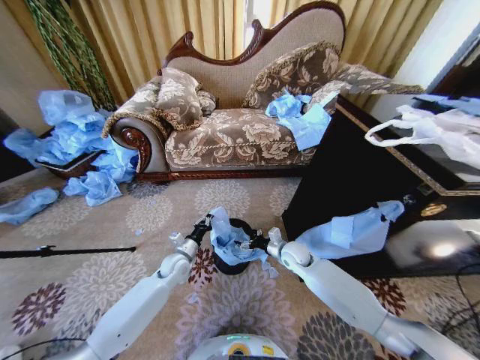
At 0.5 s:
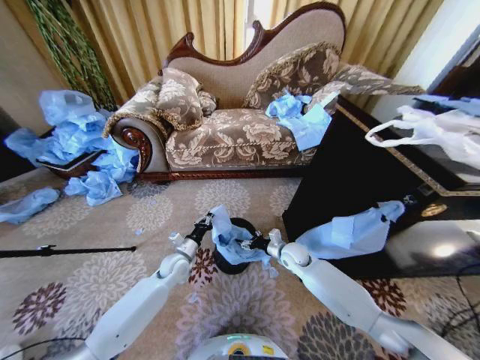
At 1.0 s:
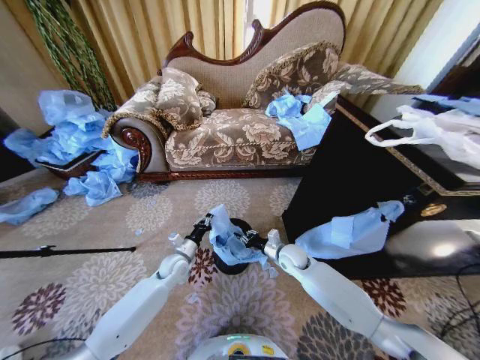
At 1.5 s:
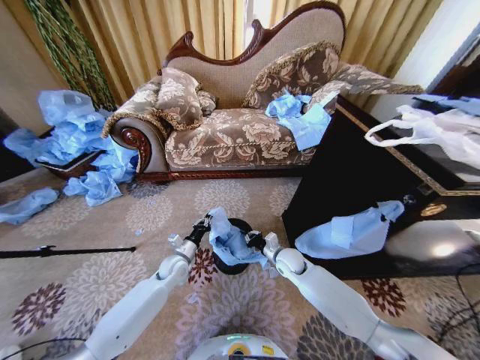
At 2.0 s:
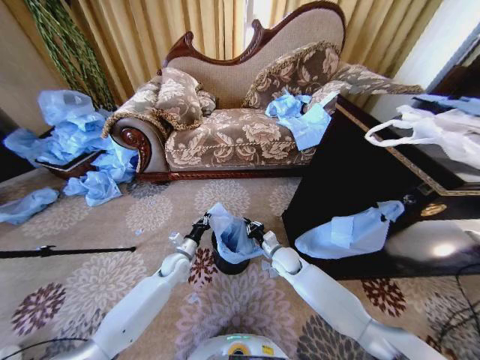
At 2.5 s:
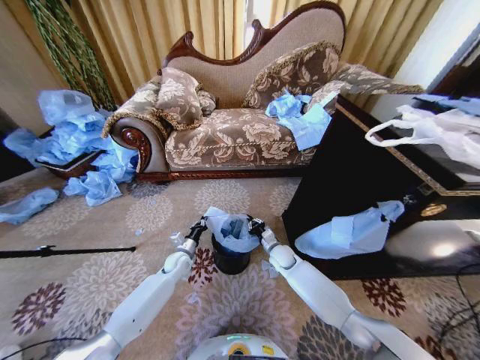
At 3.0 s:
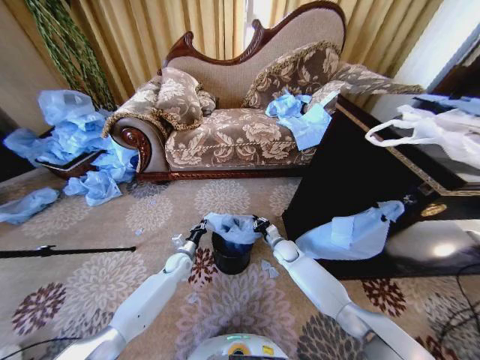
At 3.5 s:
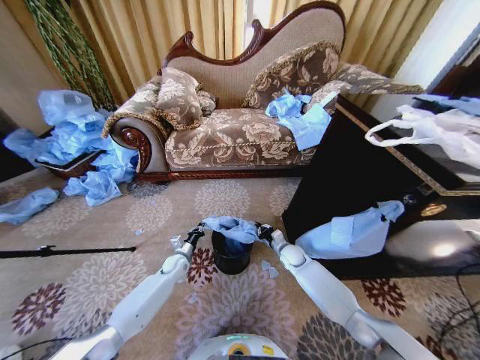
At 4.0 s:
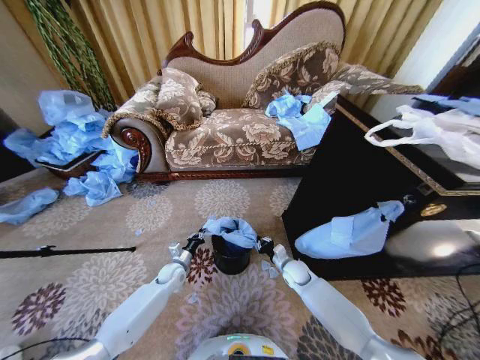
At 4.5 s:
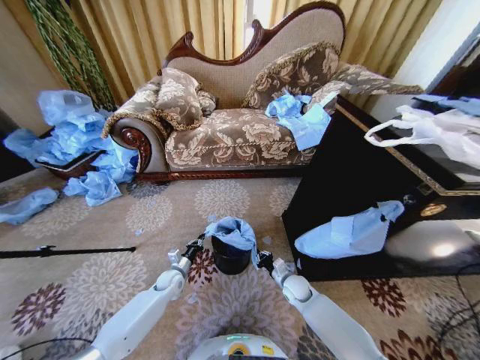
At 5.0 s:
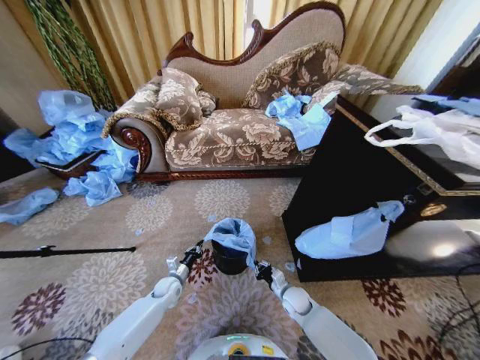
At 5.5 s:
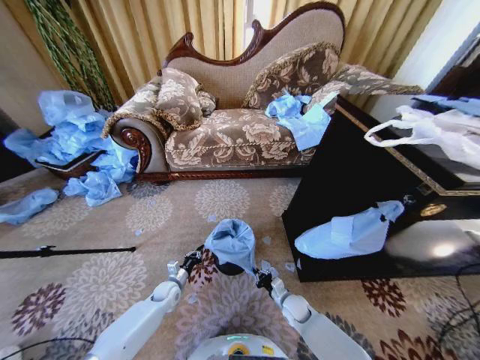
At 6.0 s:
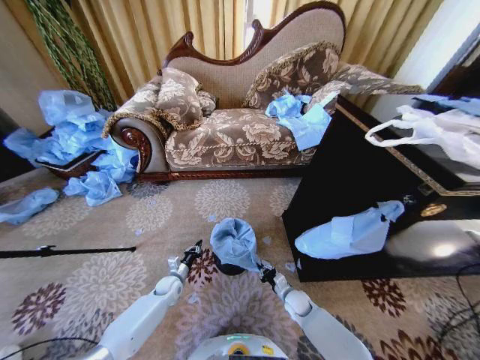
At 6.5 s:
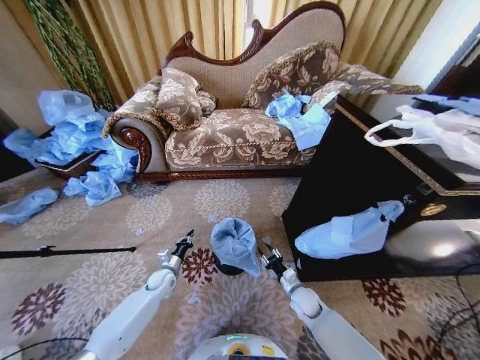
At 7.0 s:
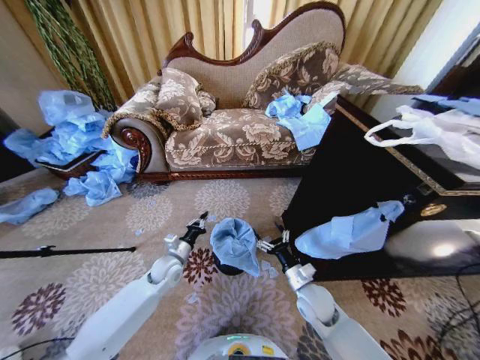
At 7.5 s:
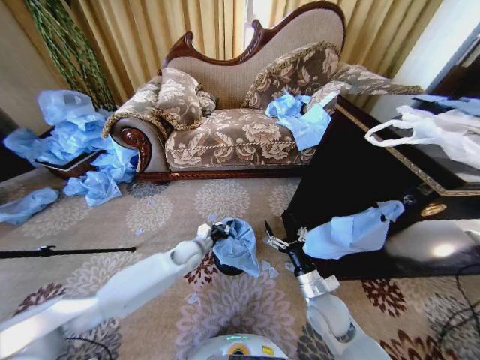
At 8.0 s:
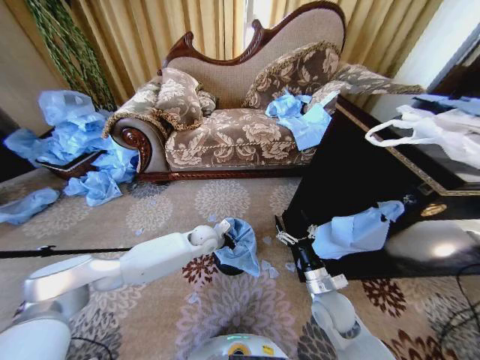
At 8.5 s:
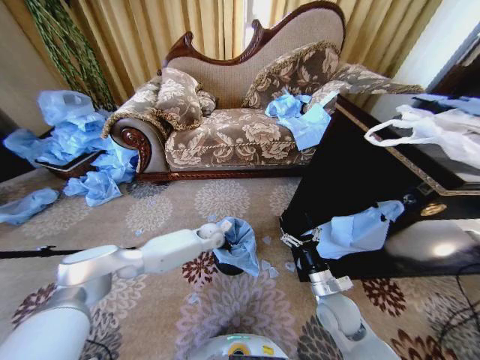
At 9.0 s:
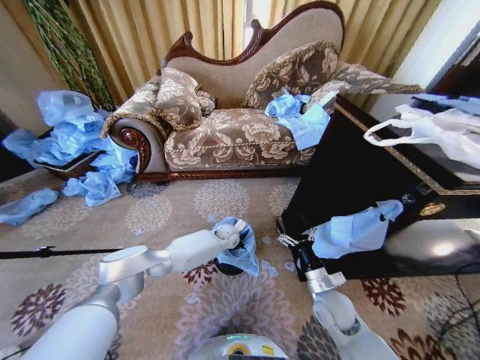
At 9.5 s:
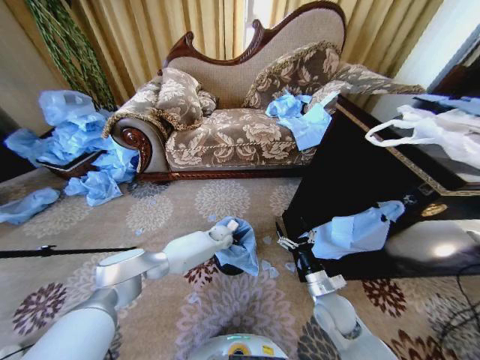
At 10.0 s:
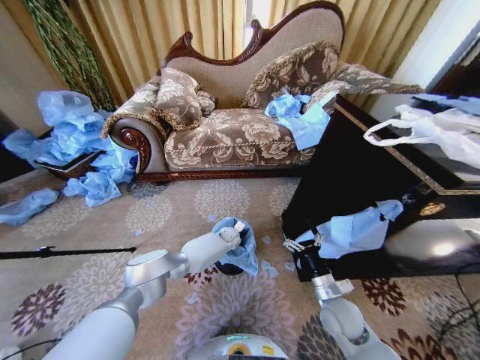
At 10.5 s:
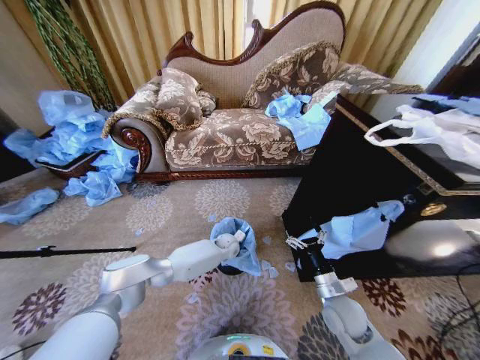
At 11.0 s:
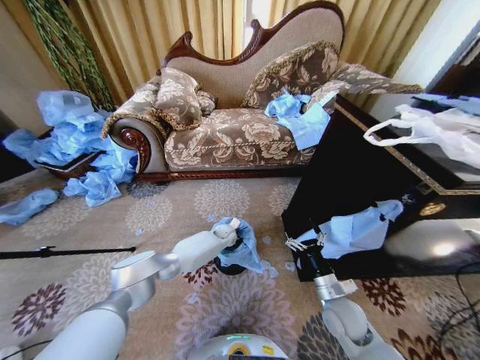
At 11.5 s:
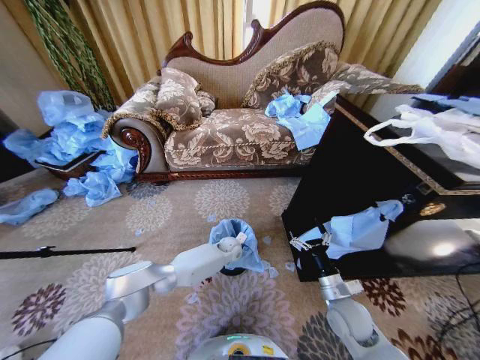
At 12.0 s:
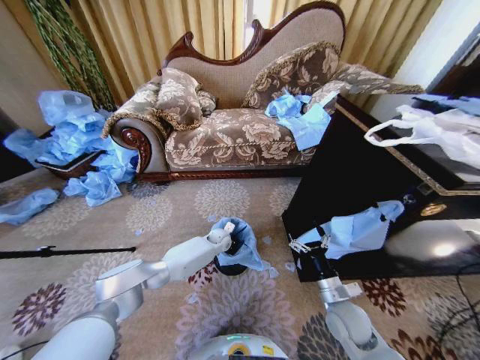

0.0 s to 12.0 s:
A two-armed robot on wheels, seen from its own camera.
Task of the whole recording: Place a garbage bag over the trash bin.
0.0 to 2.0 s: The right gripper closes.
2.0 to 4.0 s: The left gripper travels downward by approximately 5 cm. The right gripper heads downward and to the right, covering some 10 cm.
4.0 to 6.0 s: The right gripper moves downward and backward, approximately 10 cm. Meanwhile the left gripper shifts some 5 cm downward.
6.0 to 8.0 s: The left gripper goes about 25 cm upward, to the right and forward. The right gripper shifts approximately 20 cm upward, and opens up.
8.0 to 10.0 s: The left gripper travels downward, forward and to the right by approximately 15 cm.
10.0 to 12.0 s: The left gripper goes forward and backward, some 5 cm each way, reversing 2 times.

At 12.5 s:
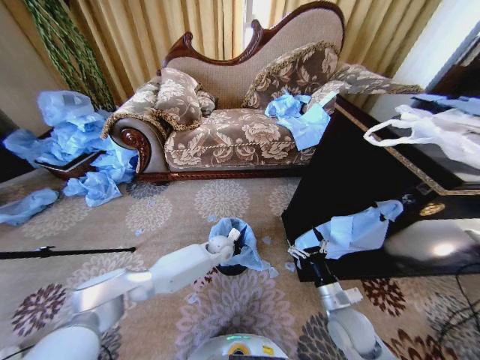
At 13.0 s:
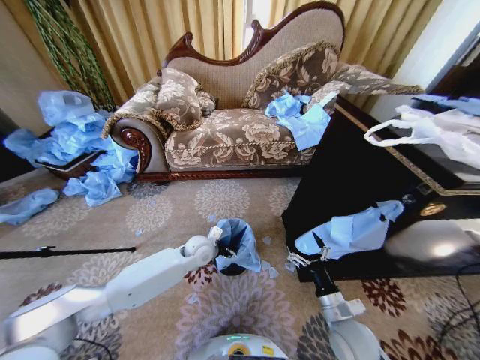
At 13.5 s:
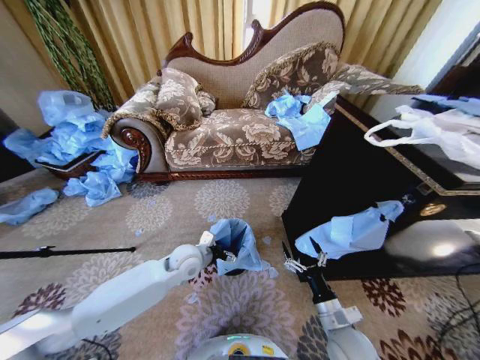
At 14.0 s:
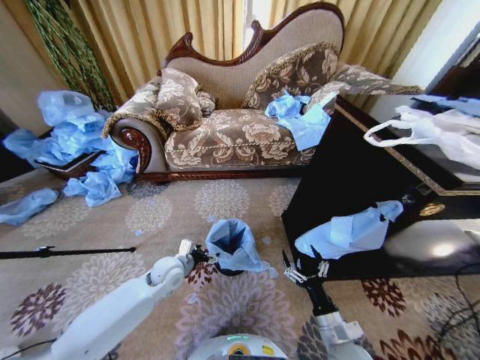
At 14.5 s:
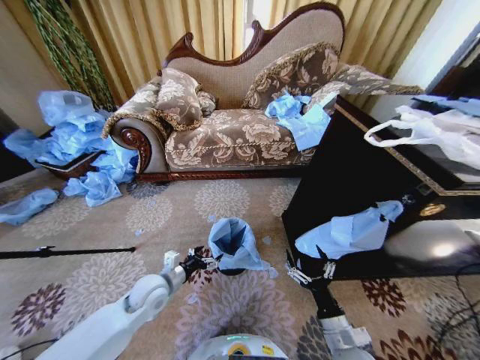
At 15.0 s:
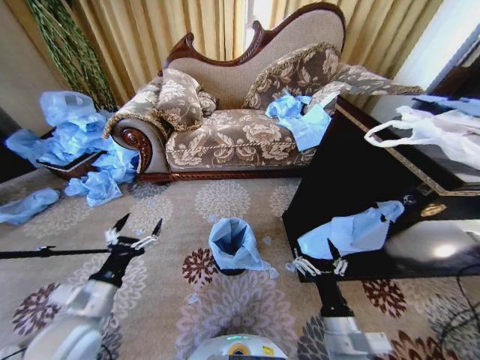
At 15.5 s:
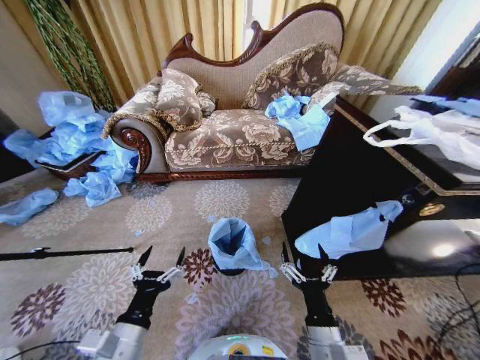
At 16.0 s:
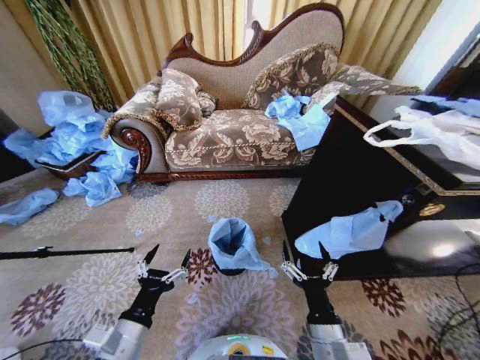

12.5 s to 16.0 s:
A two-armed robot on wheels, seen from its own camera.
Task of the whole recording: Place a garbage bag over the trash bin.
12.5 to 14.5 s: The right gripper heads backward, covering some 10 cm. The left gripper goes about 25 cm backward and to the left.
14.5 to 16.0 s: The left gripper moves backward and upward, about 20 cm, while the right gripper shifts roughly 10 cm to the left and upward.

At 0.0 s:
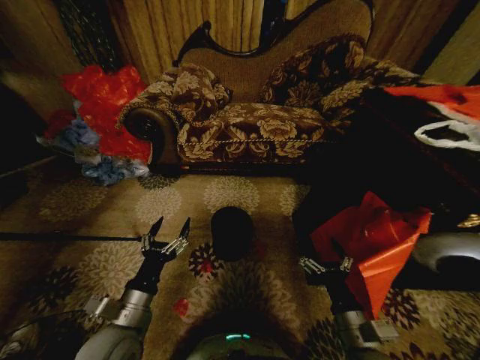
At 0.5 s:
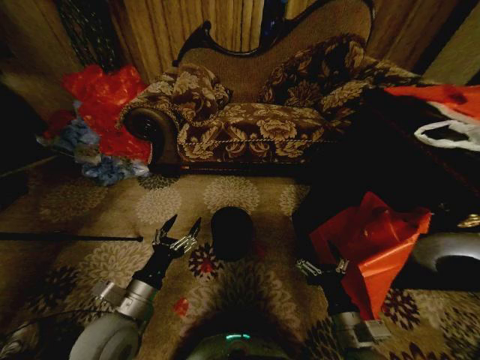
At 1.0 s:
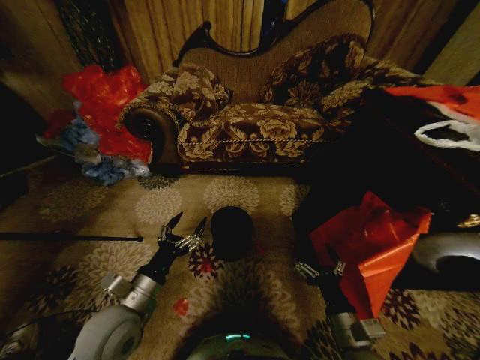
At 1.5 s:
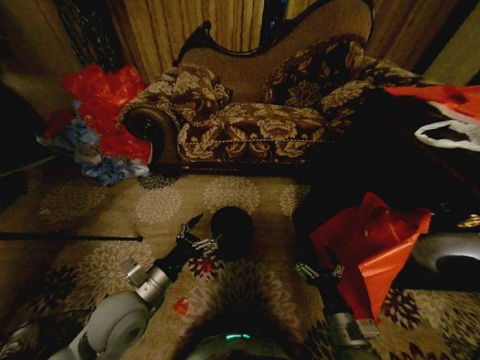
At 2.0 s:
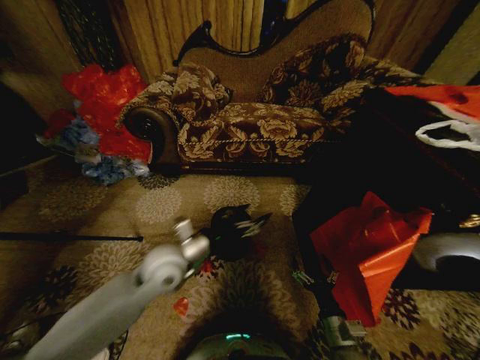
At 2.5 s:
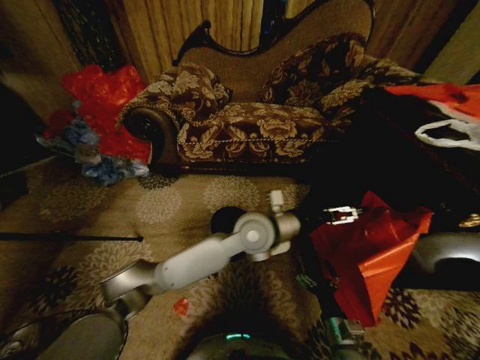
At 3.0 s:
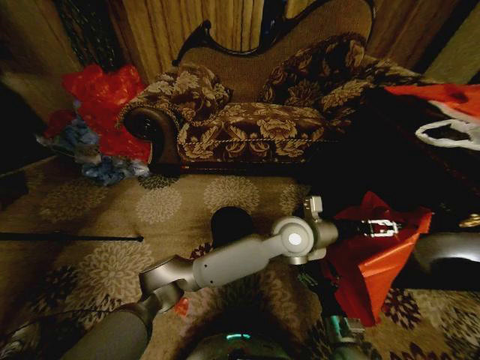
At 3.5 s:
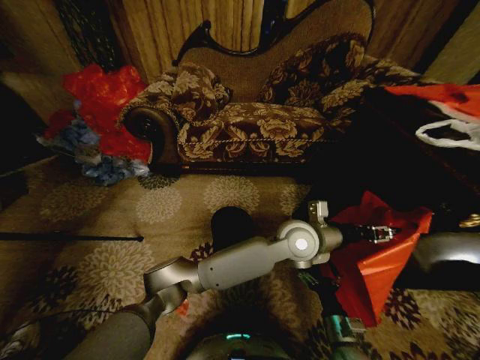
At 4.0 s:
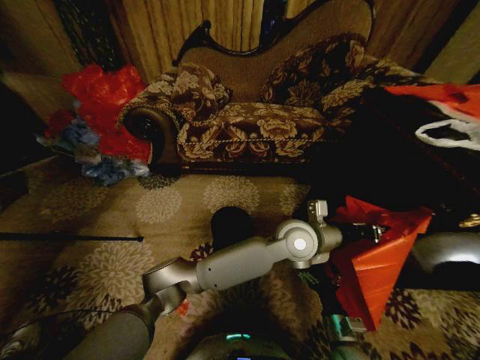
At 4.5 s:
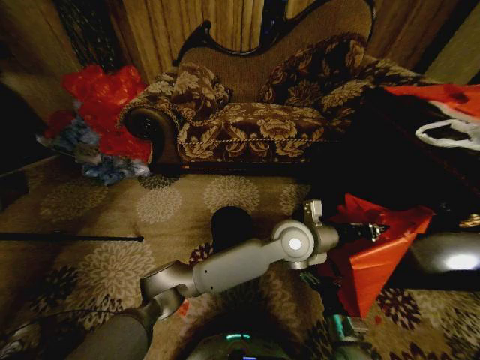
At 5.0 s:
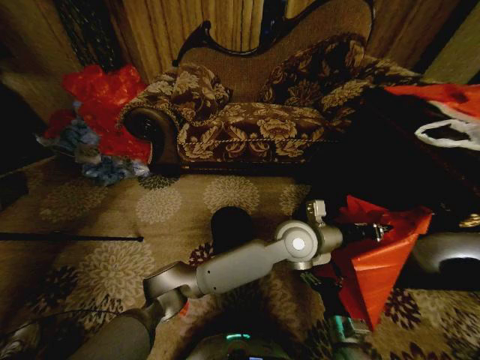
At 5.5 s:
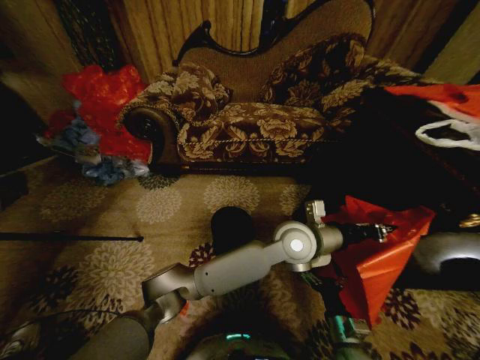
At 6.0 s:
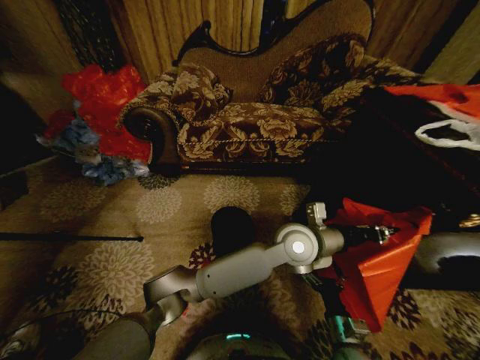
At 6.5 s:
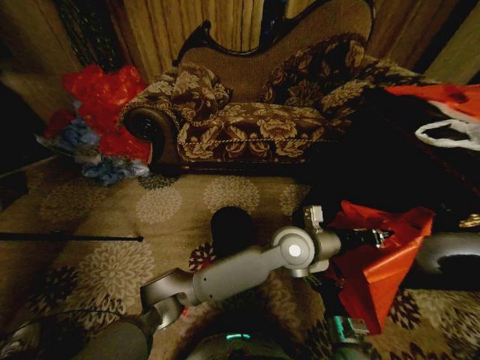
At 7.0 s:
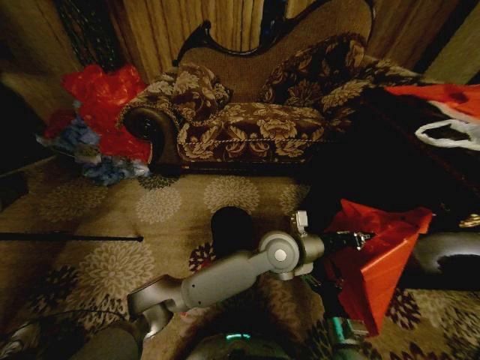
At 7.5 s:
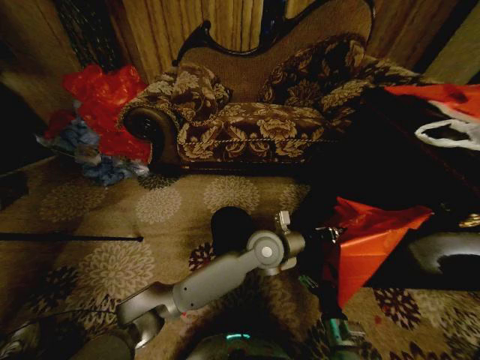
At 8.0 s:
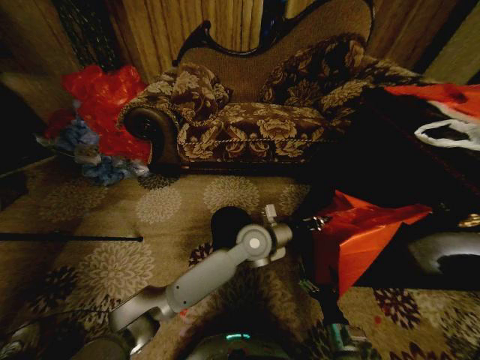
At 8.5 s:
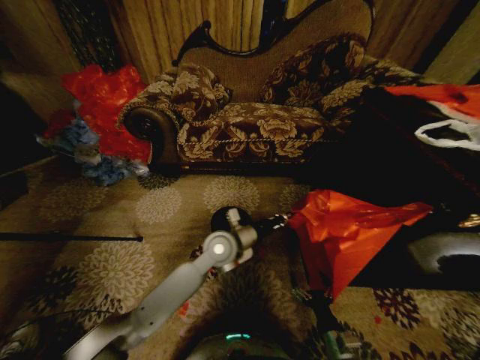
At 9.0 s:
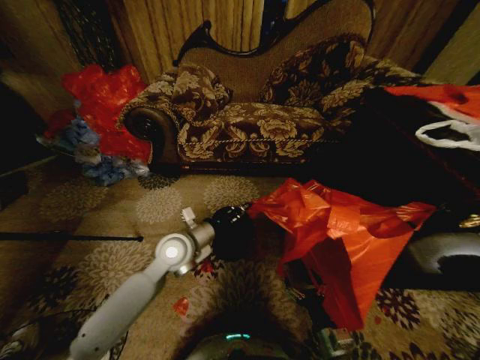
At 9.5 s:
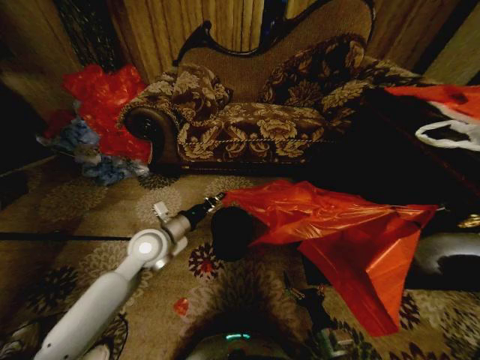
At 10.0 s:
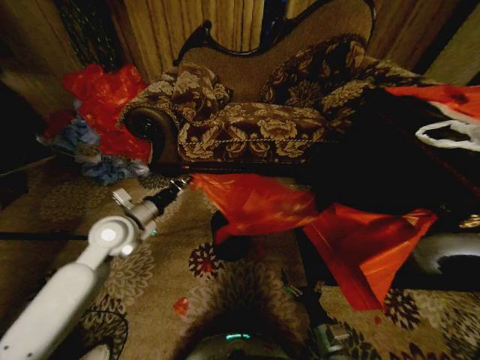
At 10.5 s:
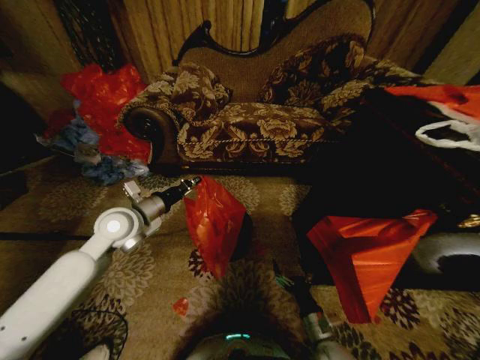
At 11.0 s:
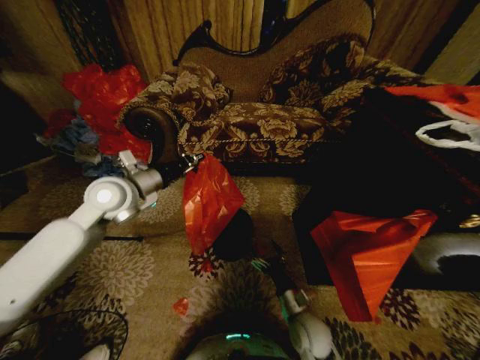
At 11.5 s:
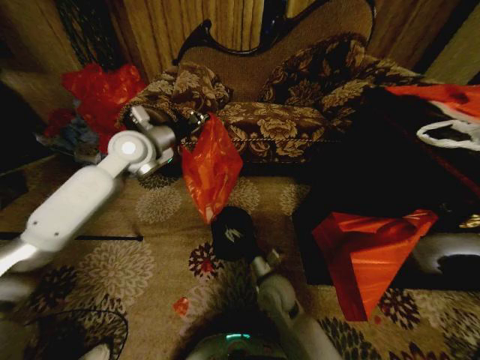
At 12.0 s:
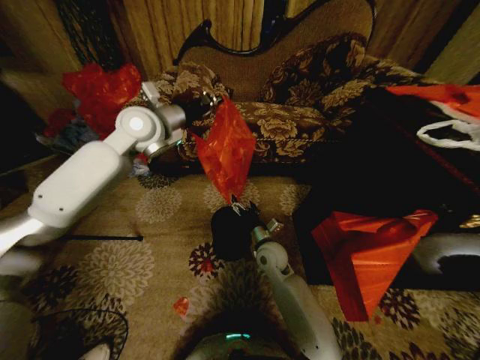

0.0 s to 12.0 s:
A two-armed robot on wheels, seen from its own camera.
Task of the whole recording: Place a garbage bag over the trash bin.
2.0 to 4.0 s: The left gripper shifts some 30 cm to the right, and closes.
4.0 to 6.0 s: The grippers make only small movements.
6.0 to 8.0 s: The left gripper moves to the left, approximately 10 cm.
8.0 to 10.0 s: The left gripper moves to the left, about 35 cm.
10.0 to 12.0 s: The left gripper goes roughly 25 cm upward and forward. The right gripper goes some 30 cm forward, to the left and upward.
